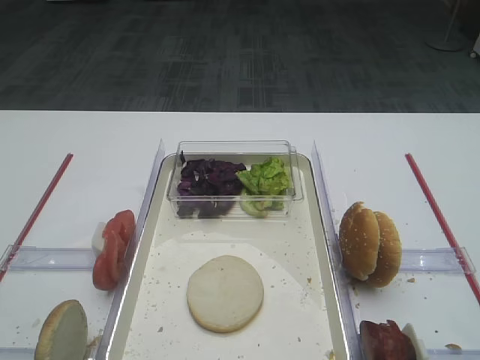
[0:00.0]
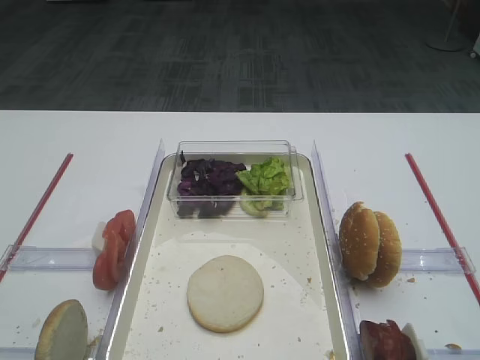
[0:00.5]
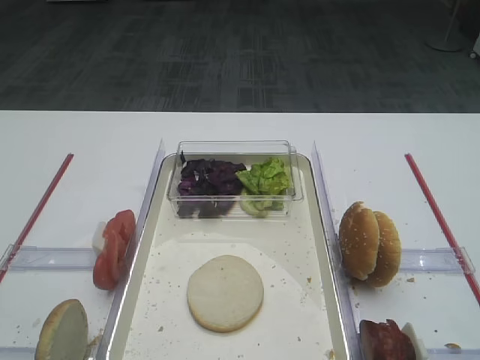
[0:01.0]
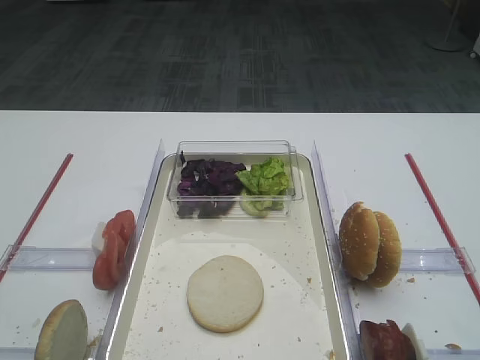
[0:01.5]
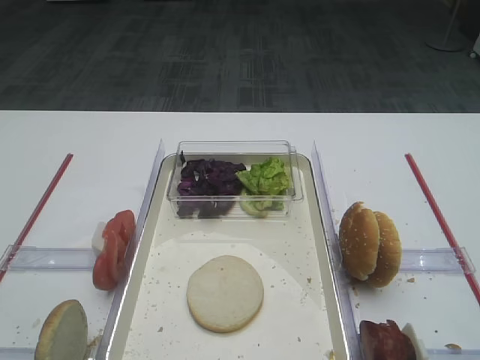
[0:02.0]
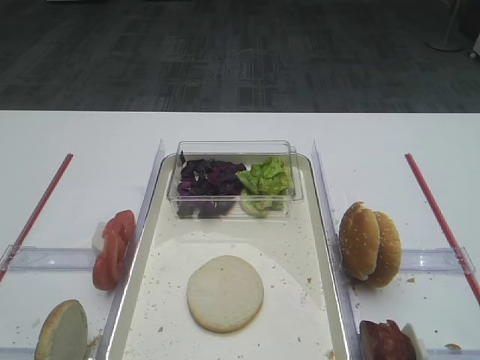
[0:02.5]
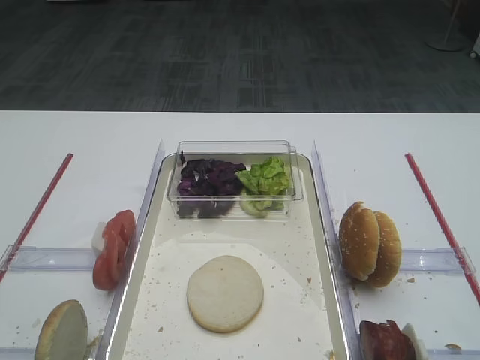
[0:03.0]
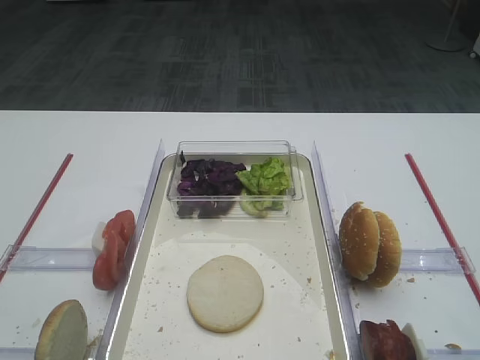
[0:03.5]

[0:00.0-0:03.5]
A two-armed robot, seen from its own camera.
0:02.0 to 0:03.5: Neither gripper changes place.
